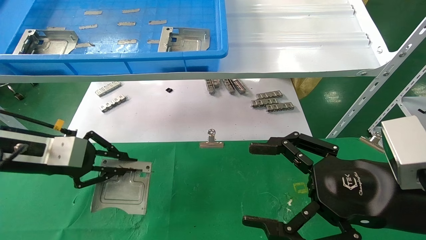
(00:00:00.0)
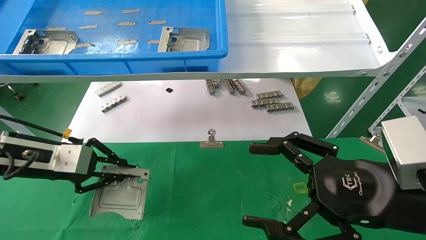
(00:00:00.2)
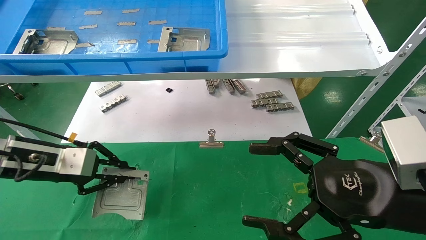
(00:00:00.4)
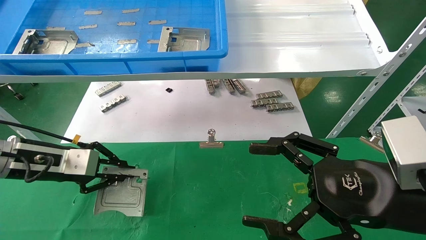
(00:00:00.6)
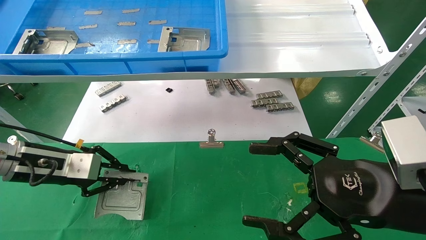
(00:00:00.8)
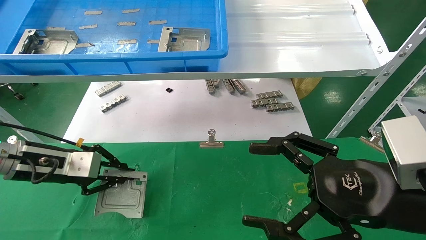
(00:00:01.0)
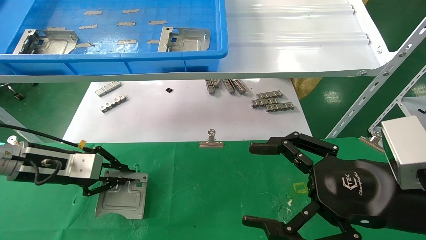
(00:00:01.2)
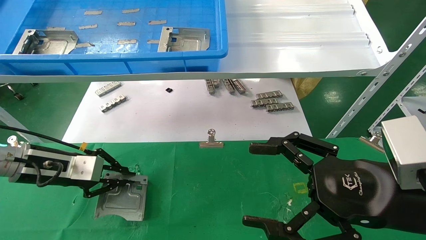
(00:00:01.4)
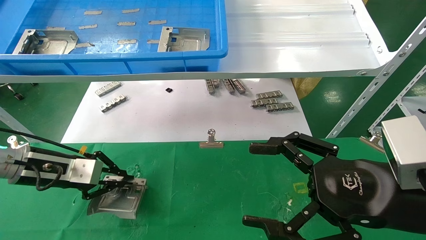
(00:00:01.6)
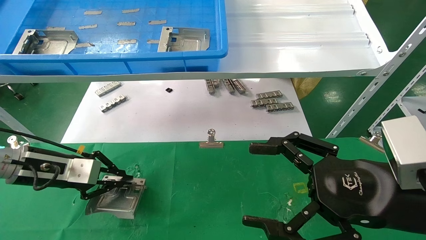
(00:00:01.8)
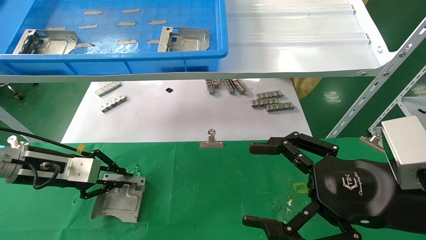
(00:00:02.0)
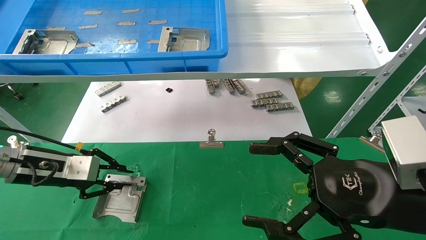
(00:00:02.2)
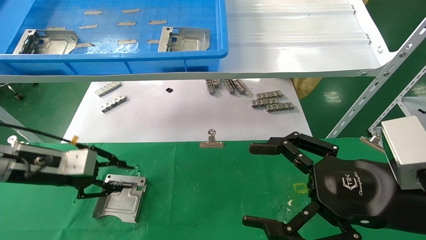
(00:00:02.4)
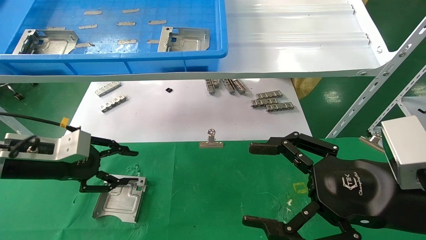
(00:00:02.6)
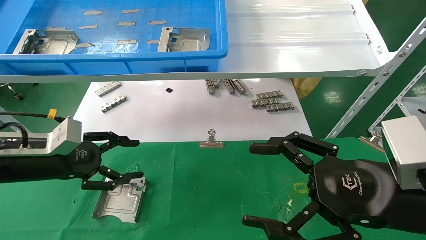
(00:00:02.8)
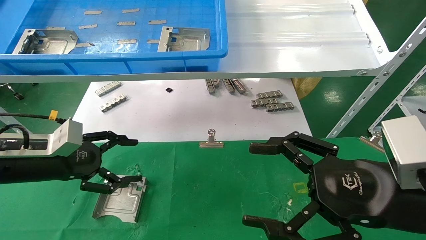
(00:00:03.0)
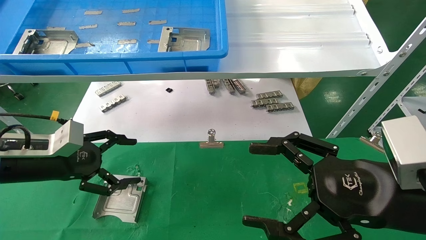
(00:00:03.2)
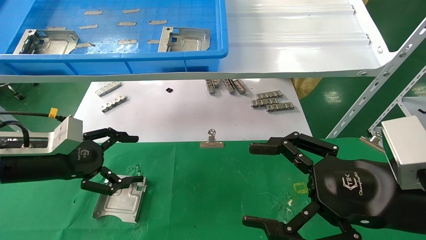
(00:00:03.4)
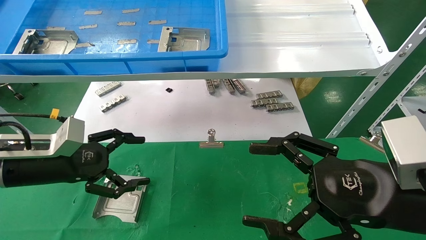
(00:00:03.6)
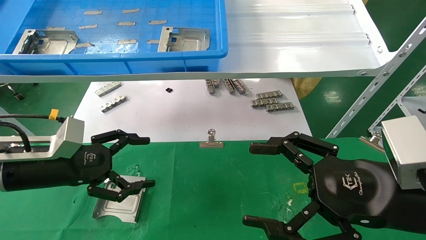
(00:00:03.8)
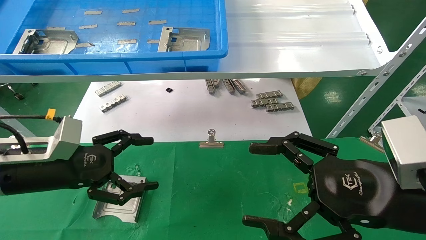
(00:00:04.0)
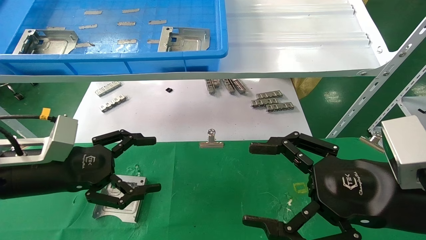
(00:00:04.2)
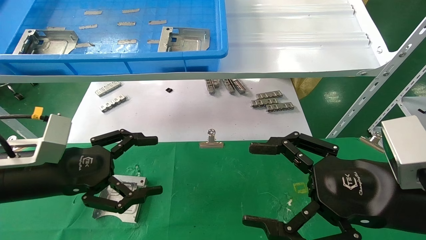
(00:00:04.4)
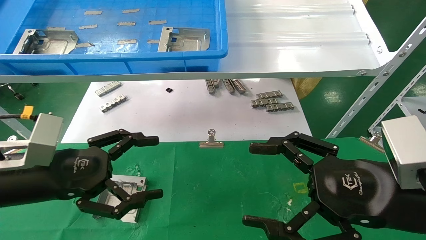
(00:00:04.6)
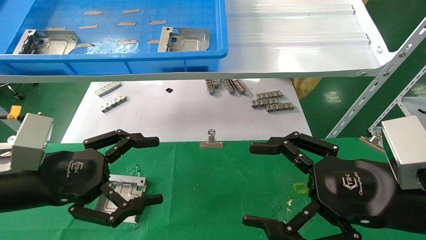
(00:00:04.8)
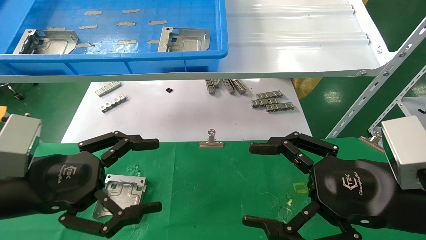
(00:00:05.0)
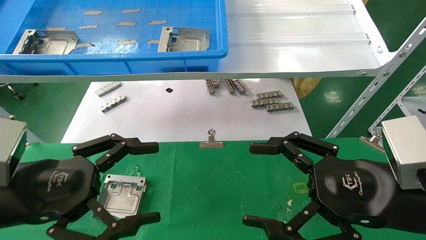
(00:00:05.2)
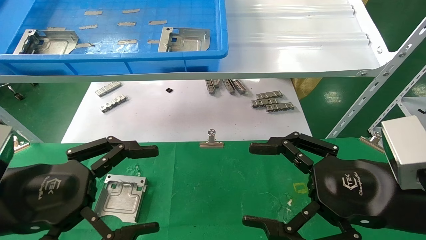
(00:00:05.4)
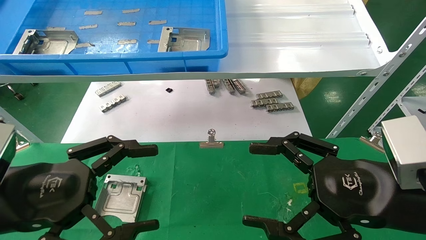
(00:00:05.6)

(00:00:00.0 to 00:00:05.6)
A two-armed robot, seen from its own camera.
Task of the whole recording: use the mechanical arm to pick up the parts and place them on the table.
Step, 00:00:00.0 - 00:00:02.2: Place the hard drive bracket into the box.
00:00:00.0 - 00:00:01.4: The left gripper is displaced downward by about 5 cm.
00:00:01.4 - 00:00:02.8: The left gripper opens.
00:00:02.8 - 00:00:04.2: The left gripper shifts by roughly 5 cm, and opens.
00:00:04.2 - 00:00:05.6: The left gripper travels backward by about 10 cm.
